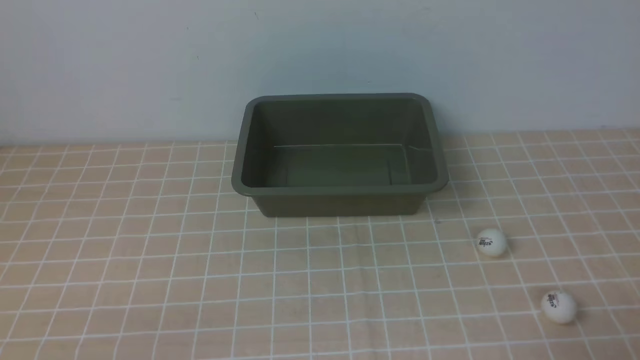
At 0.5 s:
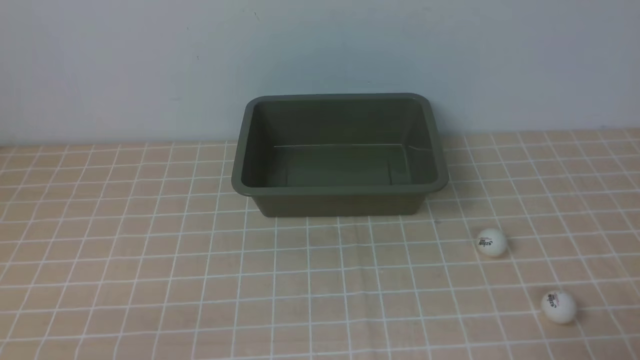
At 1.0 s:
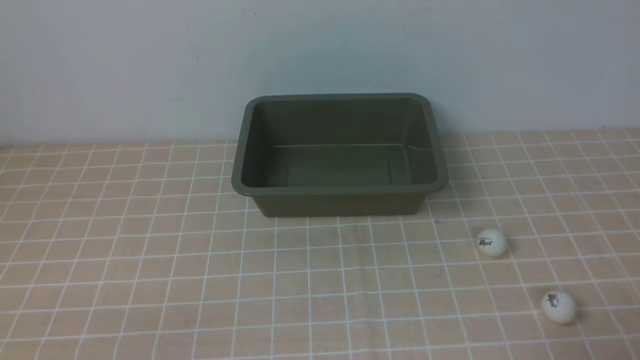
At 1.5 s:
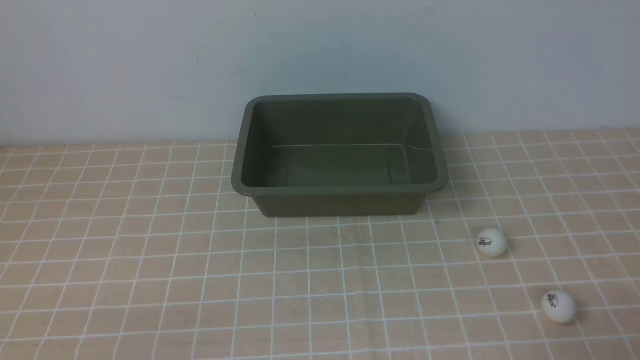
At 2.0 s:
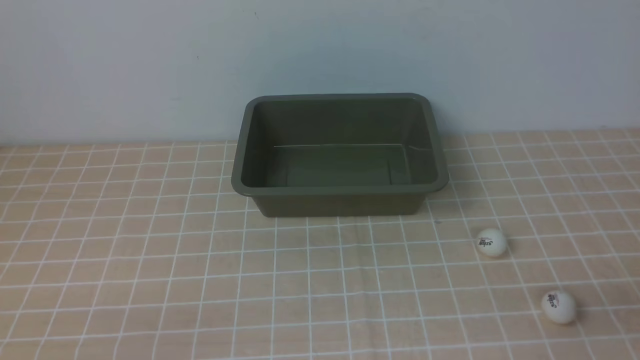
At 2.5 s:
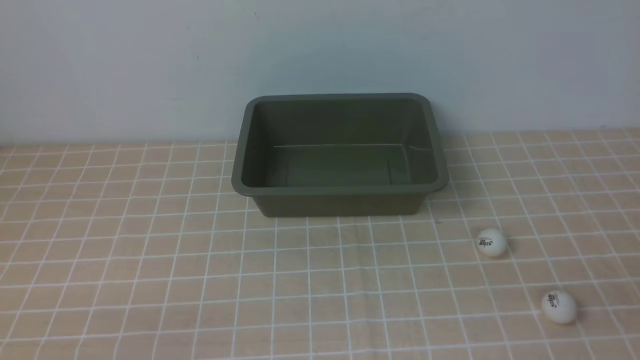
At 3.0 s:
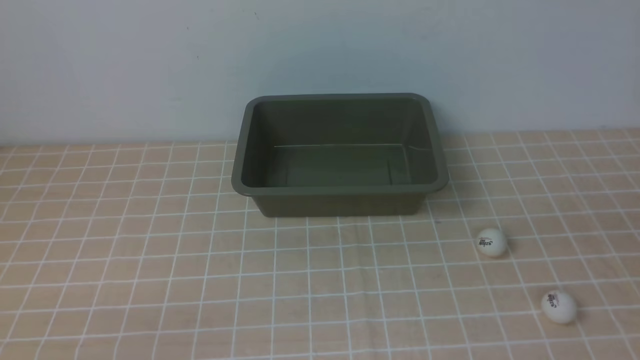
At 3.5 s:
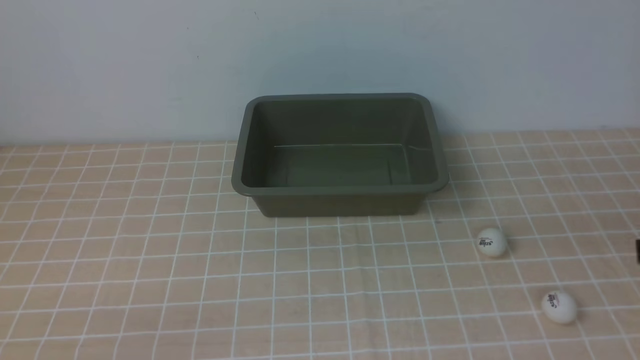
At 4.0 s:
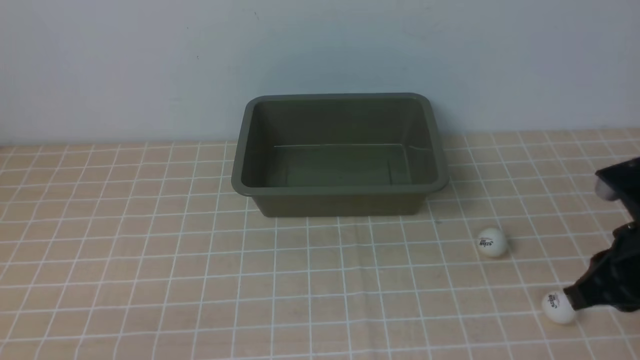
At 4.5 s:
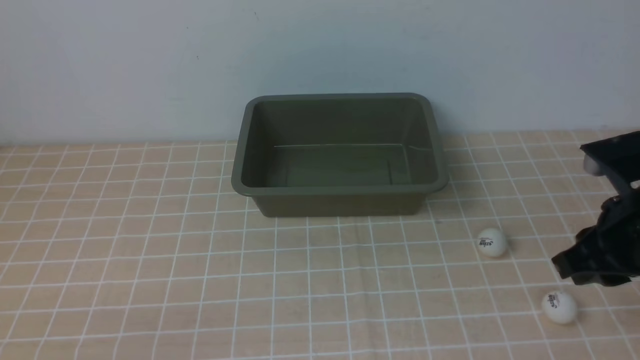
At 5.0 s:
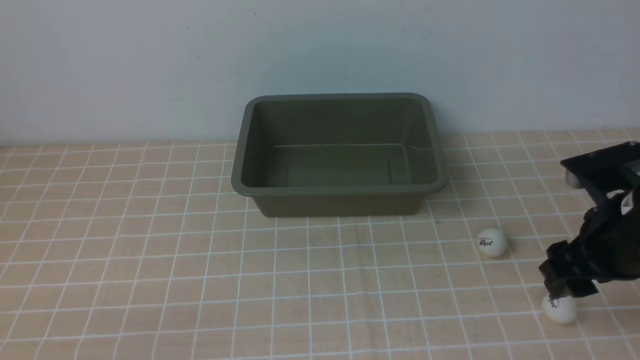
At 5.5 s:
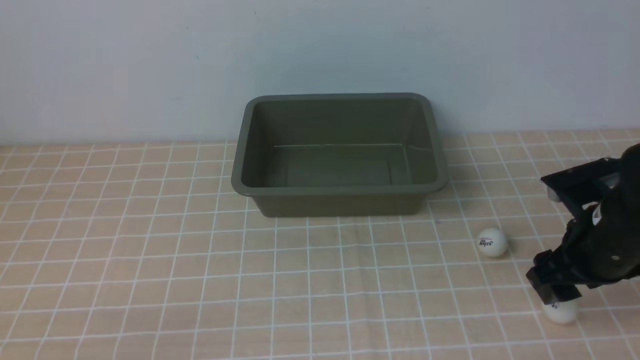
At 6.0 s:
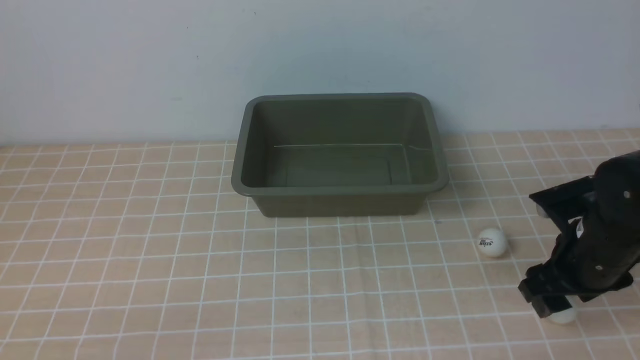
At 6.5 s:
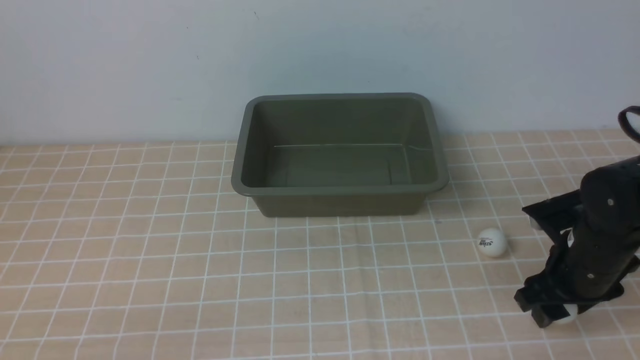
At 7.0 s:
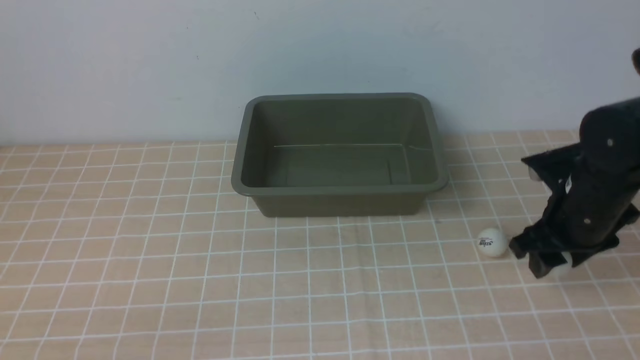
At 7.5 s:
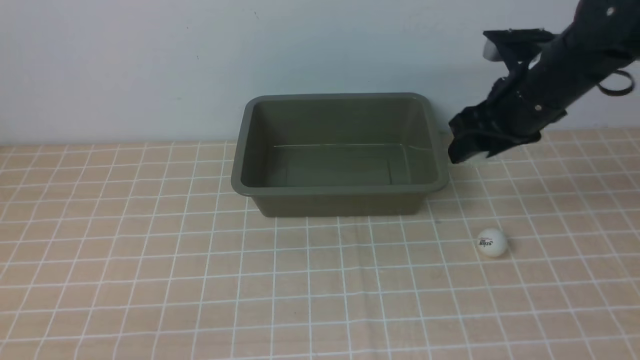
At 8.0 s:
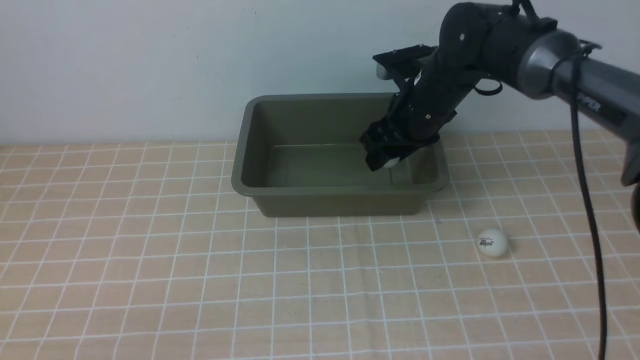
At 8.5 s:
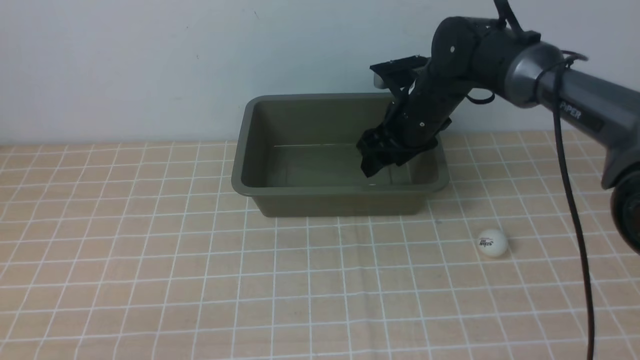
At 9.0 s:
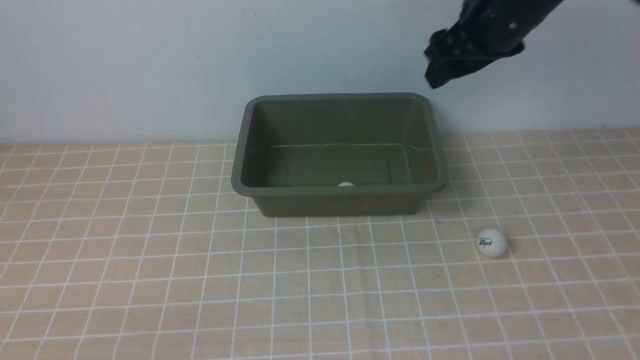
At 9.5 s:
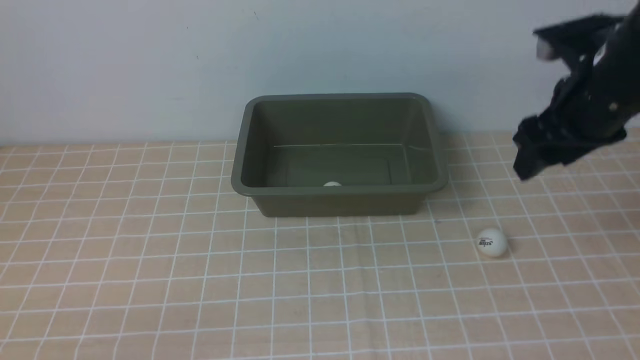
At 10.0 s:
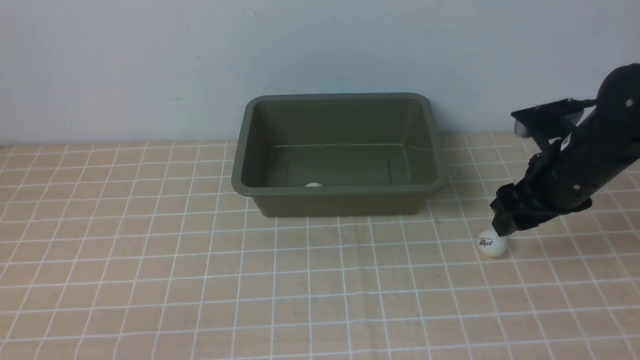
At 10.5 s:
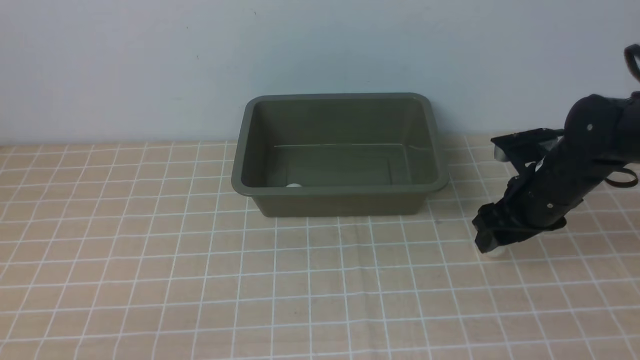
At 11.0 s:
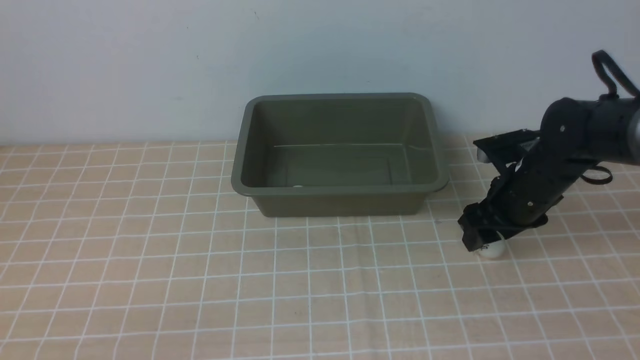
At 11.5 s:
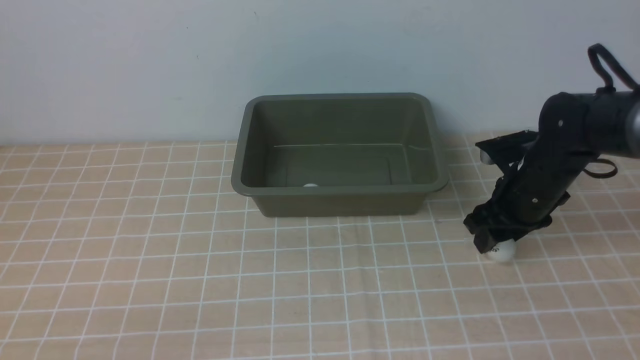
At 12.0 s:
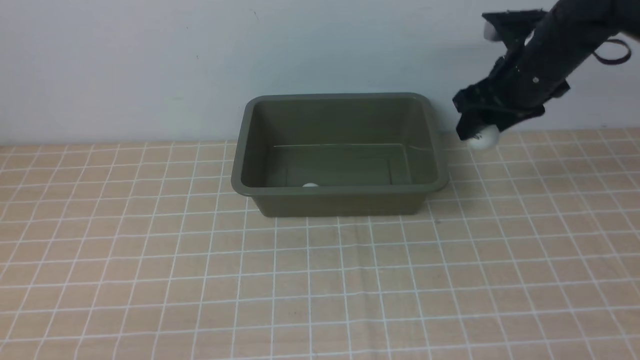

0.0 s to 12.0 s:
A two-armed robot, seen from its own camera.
Step, 0.0 to 7.0 s: use the right arm to clamp the table tennis ball closest to it.
Step, 7.5 to 9.0 s: use the right arm to put the table tennis ball into the box.
Step, 9.5 to 11.5 s: use the right arm to clamp the table tennis ball closest to it.
2.0 to 4.0 s: The right gripper is displaced forward by roughly 15 cm.
4.0 to 6.0 s: The right gripper moves downward and forward, roughly 10 cm, and opens up.
6.0 to 8.0 s: The right gripper goes roughly 20 cm forward and to the left.
8.0 to 10.0 s: The right gripper is displaced to the right and backward by roughly 15 cm, and travels upward and back again, roughly 10 cm each way.
10.0 to 12.0 s: The right gripper travels forward and upward by about 10 cm.

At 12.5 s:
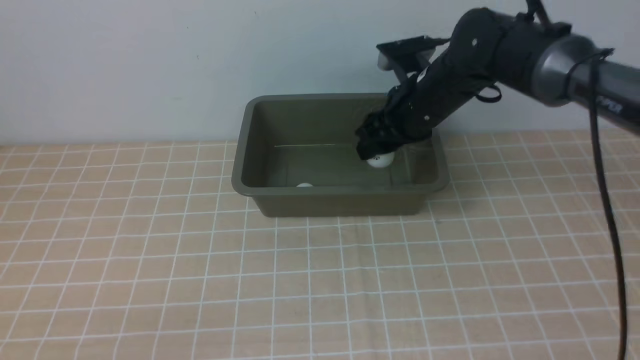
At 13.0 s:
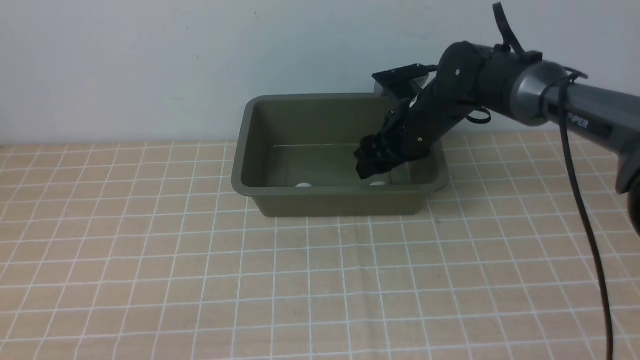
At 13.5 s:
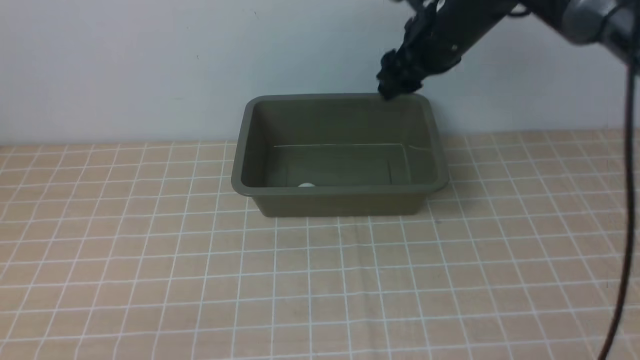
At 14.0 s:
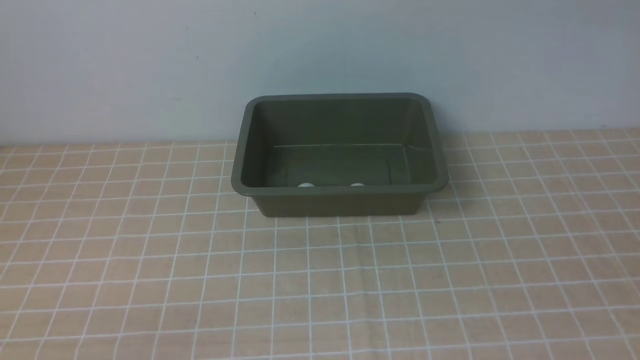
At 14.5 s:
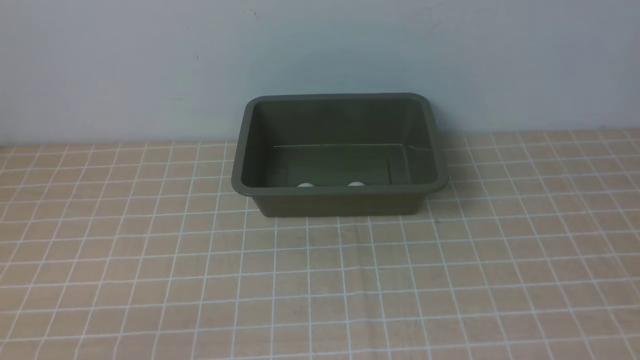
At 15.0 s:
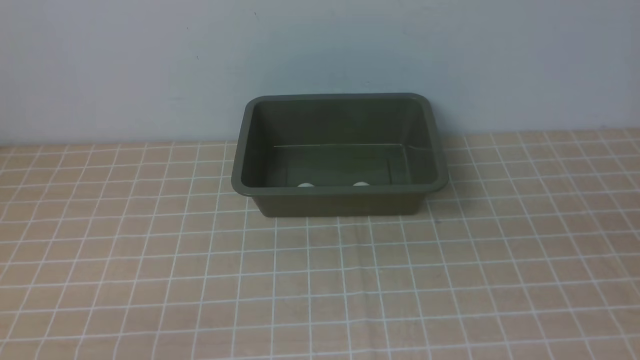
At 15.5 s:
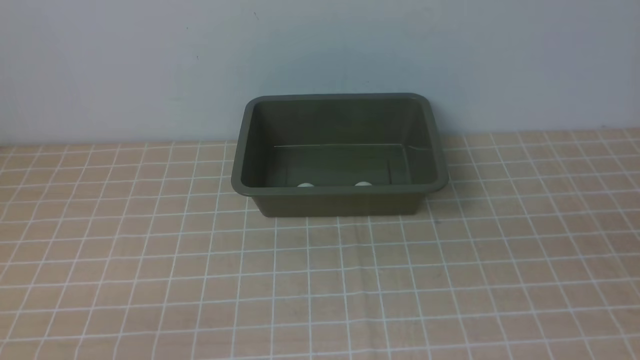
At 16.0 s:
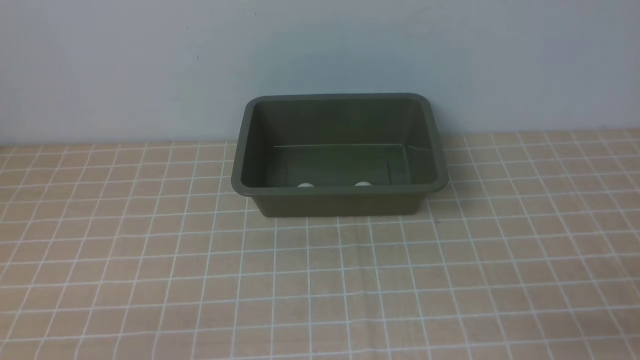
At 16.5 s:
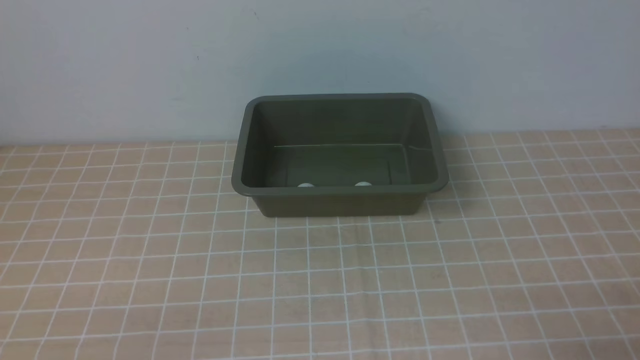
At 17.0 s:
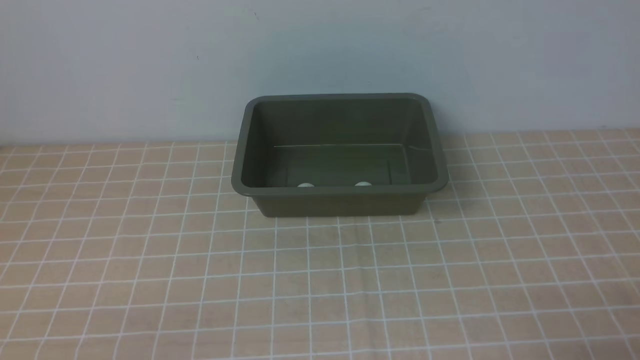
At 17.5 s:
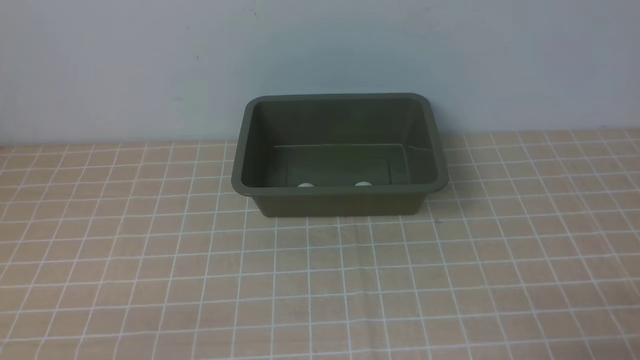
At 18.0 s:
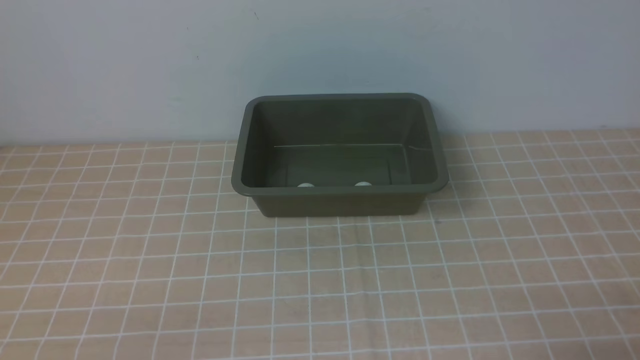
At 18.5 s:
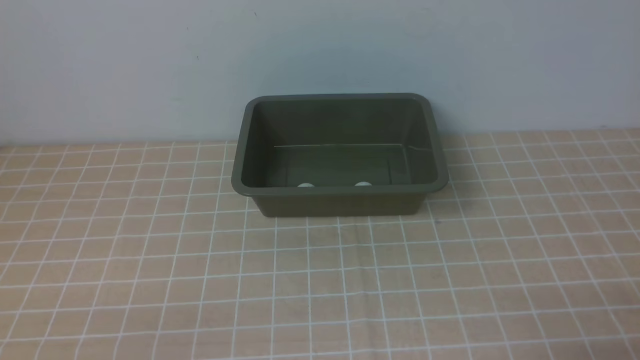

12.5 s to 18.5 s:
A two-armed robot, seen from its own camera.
12.5 to 14.5 s: The right gripper goes about 40 cm backward, upward and to the right, and closes.
16.5 to 18.5 s: Neither gripper changes place.
